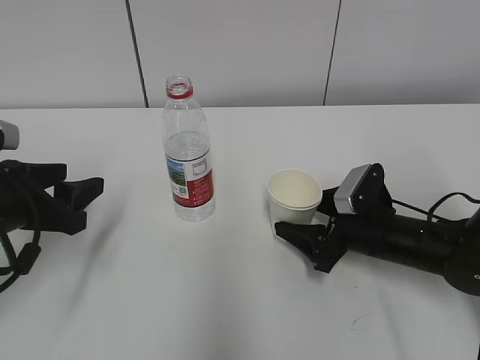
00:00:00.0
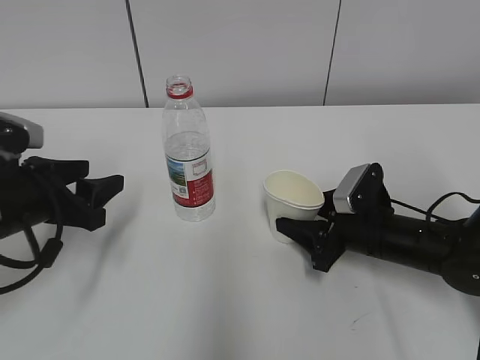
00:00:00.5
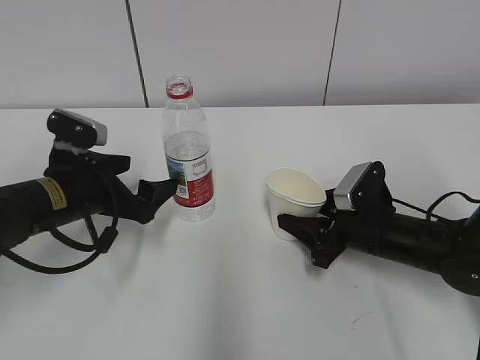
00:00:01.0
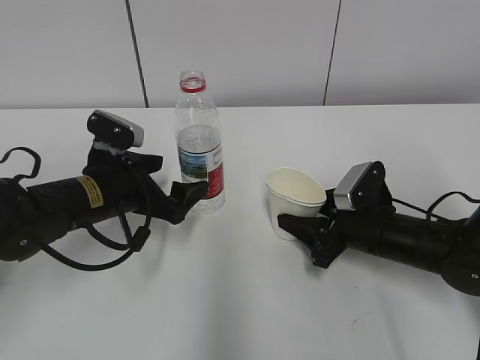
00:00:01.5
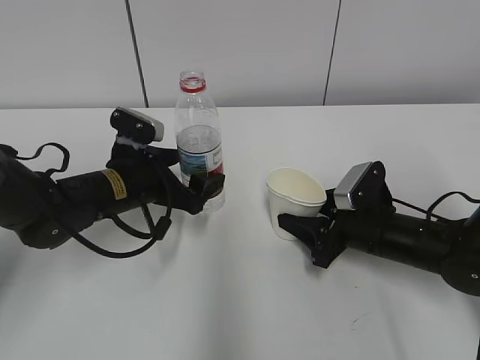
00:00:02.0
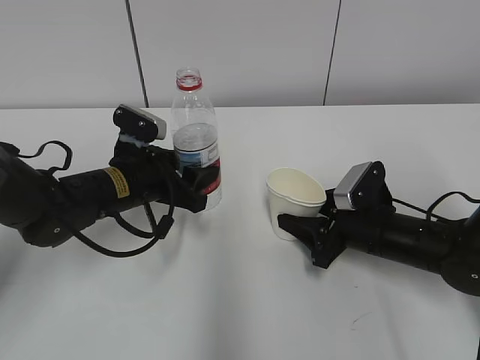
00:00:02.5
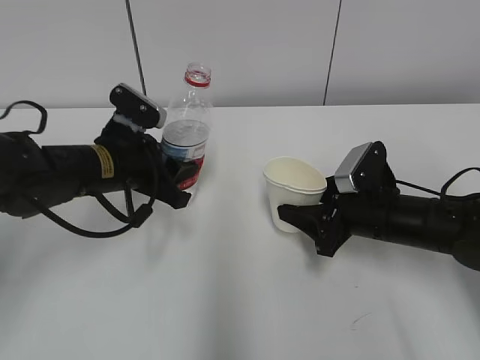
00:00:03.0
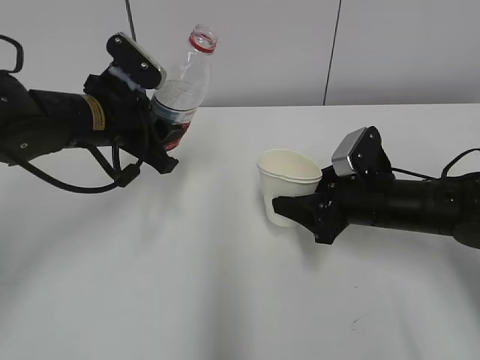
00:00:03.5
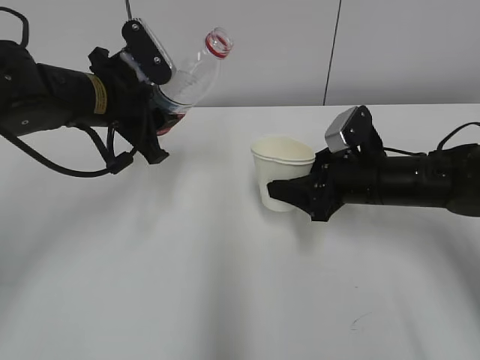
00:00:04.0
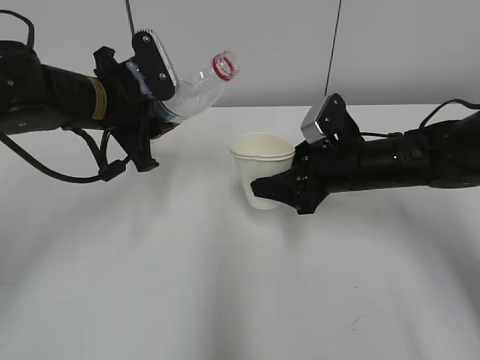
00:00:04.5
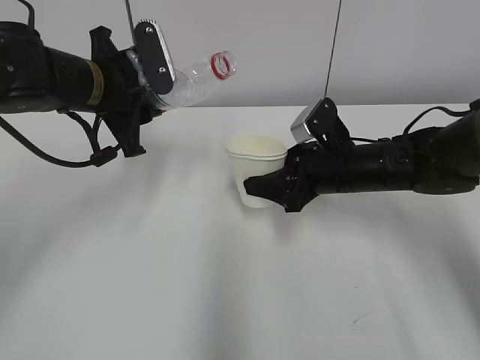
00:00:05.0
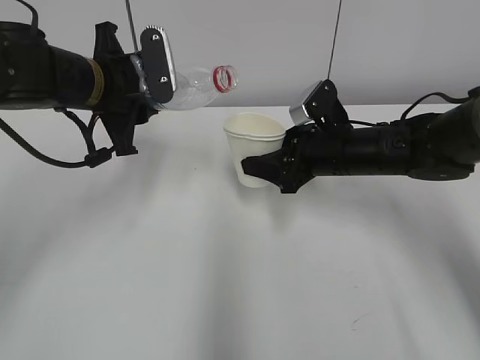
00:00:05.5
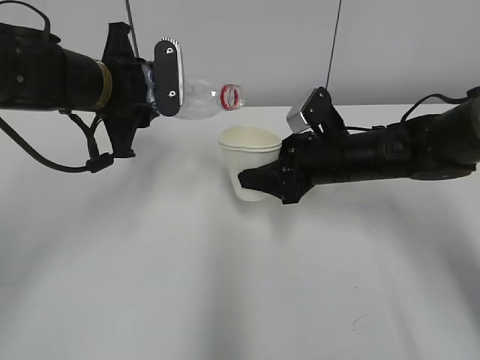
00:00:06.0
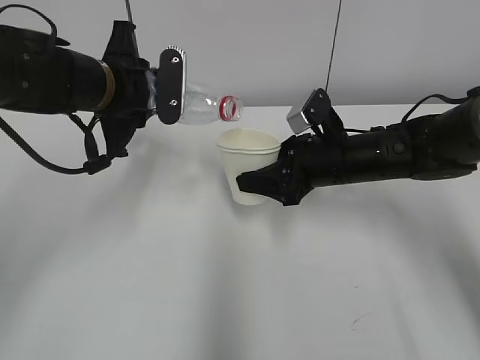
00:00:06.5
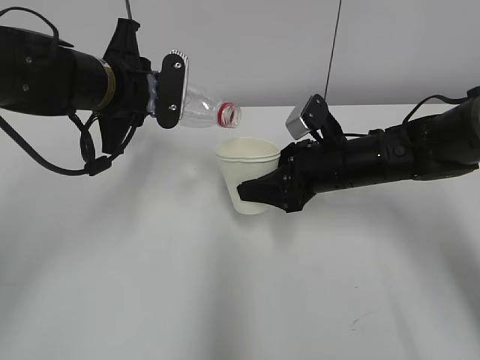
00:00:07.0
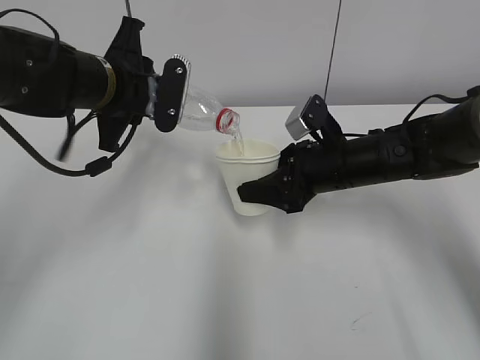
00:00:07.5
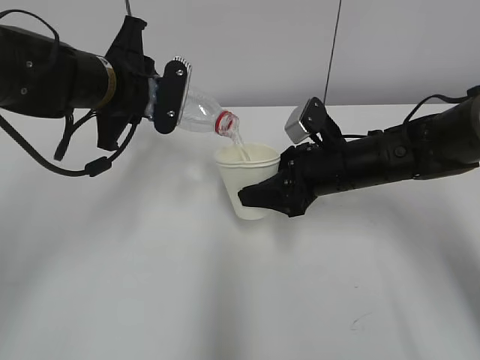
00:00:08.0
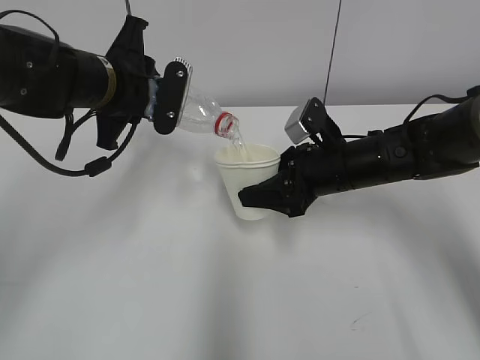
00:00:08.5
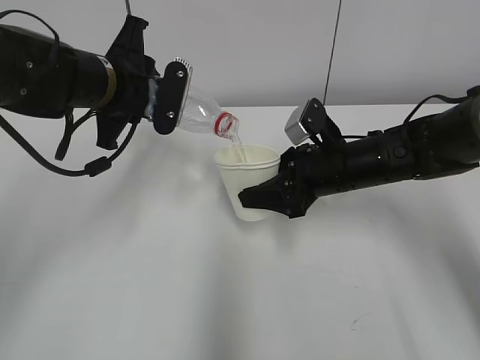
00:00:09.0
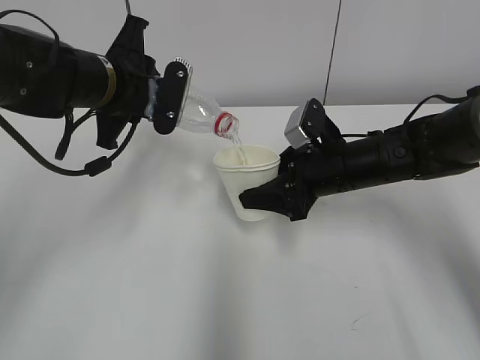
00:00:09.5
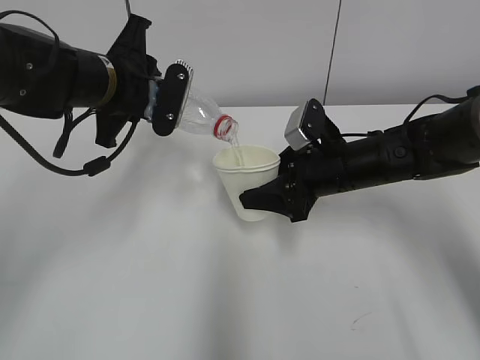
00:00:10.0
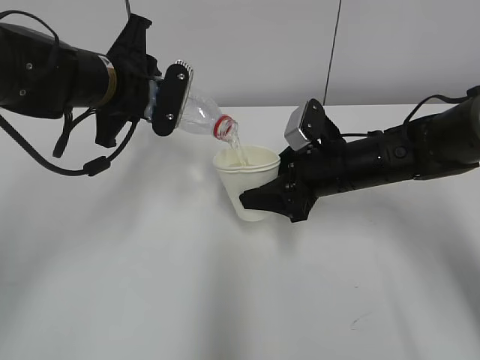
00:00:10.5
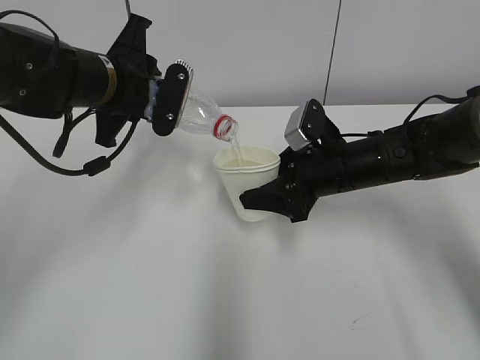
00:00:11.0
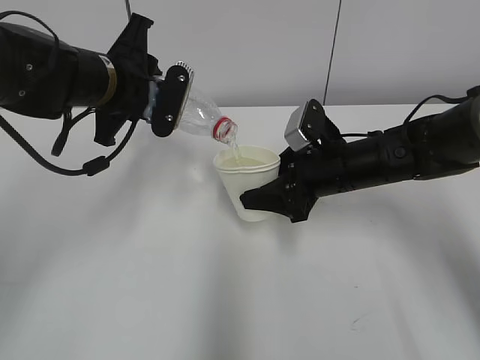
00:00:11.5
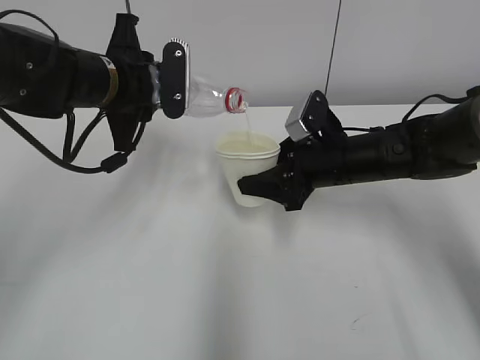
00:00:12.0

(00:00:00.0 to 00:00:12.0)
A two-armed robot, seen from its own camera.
Step, 00:00:00.5 - 00:00:04.0: Lift the paper cup with the right hand.
Step, 00:00:04.5 - 00:00:08.0: Fill water with the right hand.
Step, 00:00:04.5 - 00:00:08.0: Pour water with the left hand.
Step, 00:00:09.5 - 00:00:11.5: Place the paper cup with the right hand.
Step, 00:00:09.5 - 00:00:11.5: Place the water bottle with the left hand.
00:00:00.0 - 00:00:02.0: The left gripper moves to the right and forward, some 15 cm, and opens. Meanwhile the right gripper closes.
00:00:02.0 - 00:00:04.0: The left gripper is displaced upward by roughly 10 cm, and closes; the right gripper shifts about 5 cm upward.
00:00:06.0 - 00:00:08.0: The grippers make only small movements.
00:00:08.0 - 00:00:12.0: The grippers stay close to where they were, moving slightly.

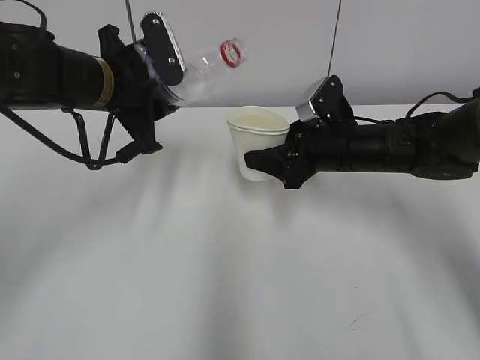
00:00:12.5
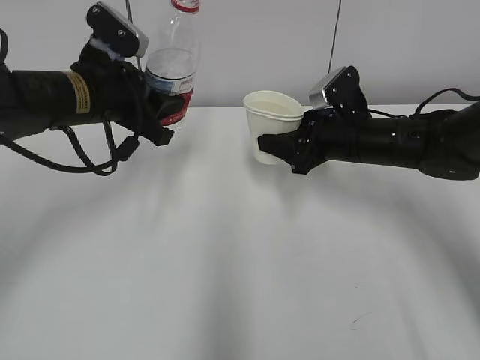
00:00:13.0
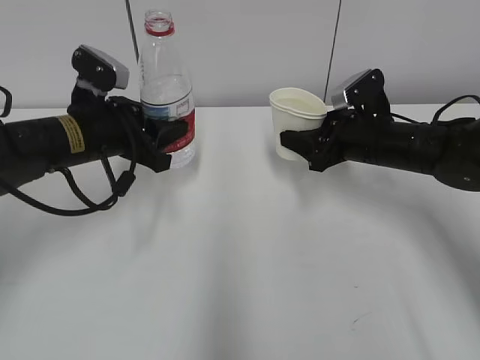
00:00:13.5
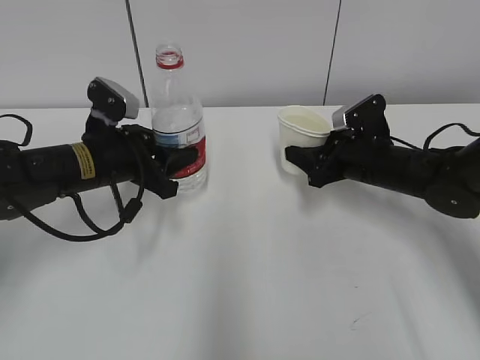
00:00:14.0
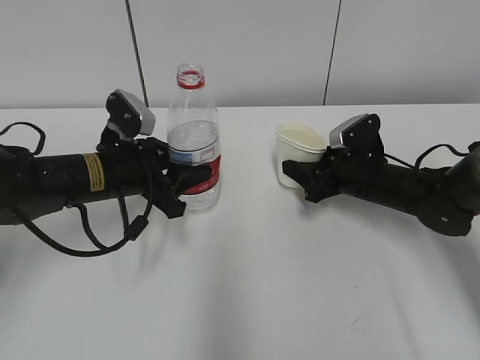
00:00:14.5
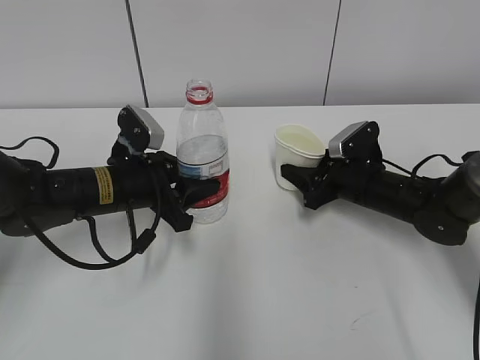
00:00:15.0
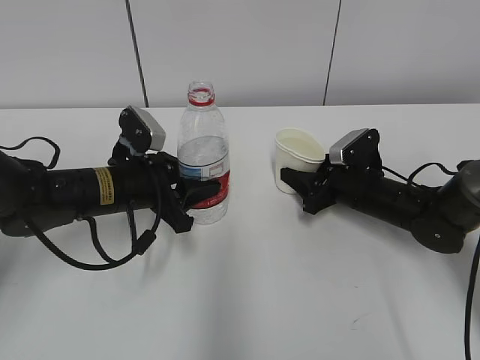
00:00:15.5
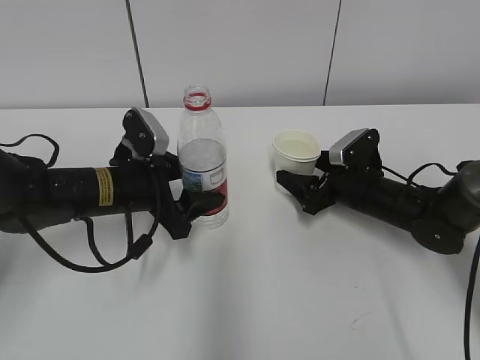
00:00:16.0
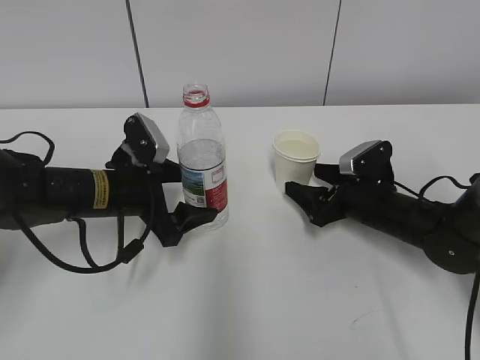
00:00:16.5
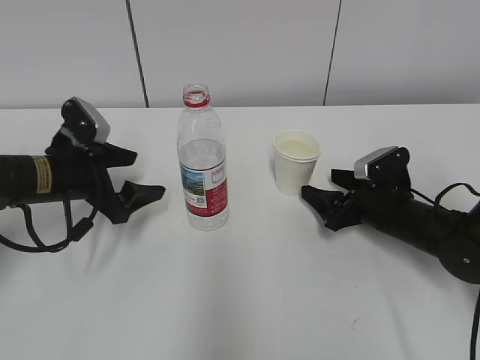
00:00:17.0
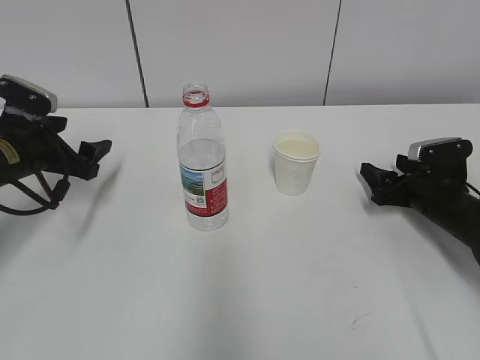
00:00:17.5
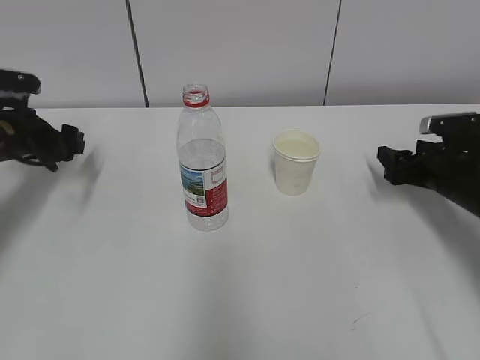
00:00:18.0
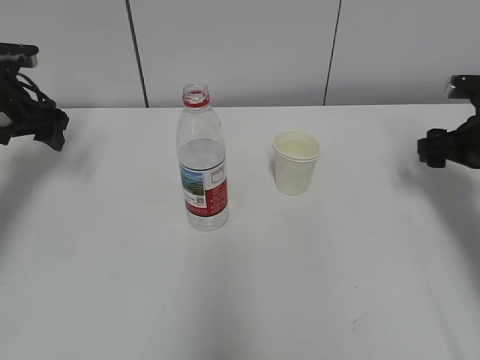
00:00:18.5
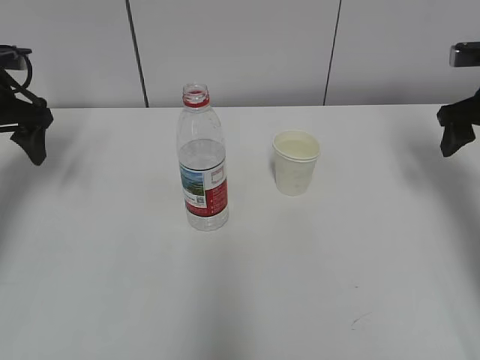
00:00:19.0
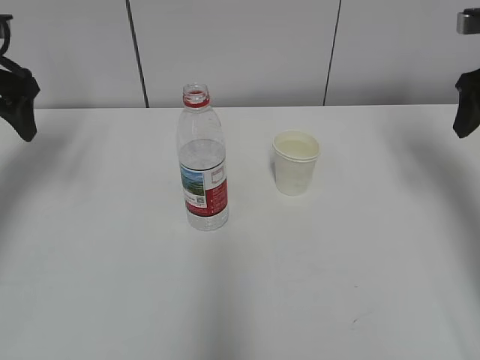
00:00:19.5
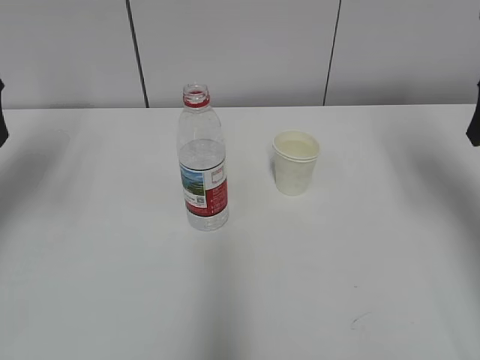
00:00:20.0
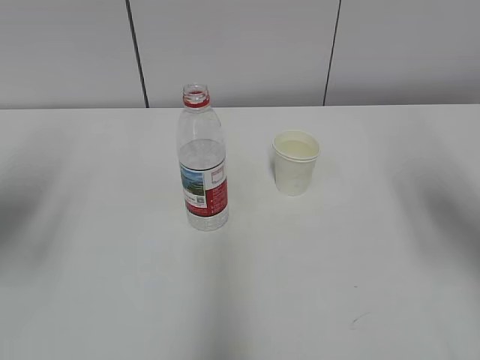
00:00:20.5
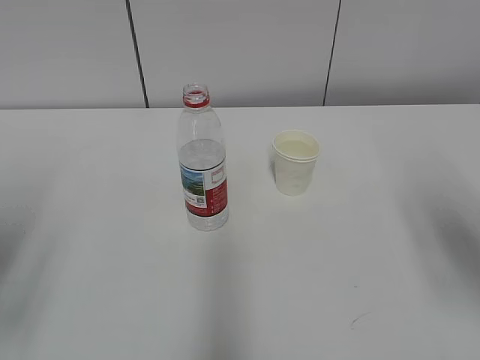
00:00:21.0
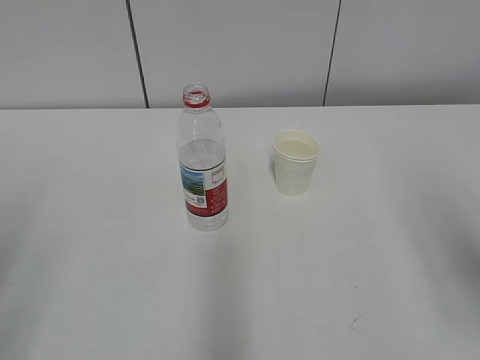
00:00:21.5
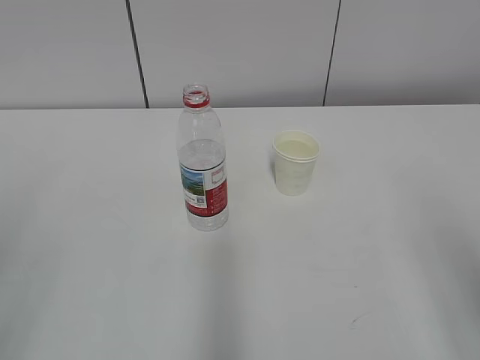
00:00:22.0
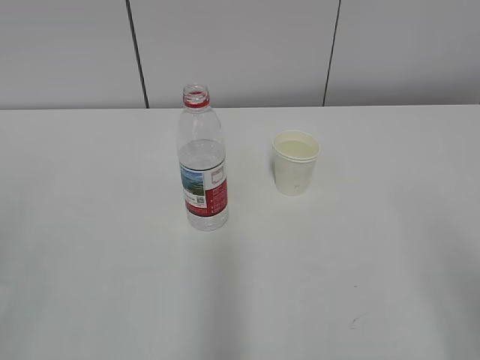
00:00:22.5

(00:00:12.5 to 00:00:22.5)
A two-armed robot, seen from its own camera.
00:00:12.5 - 00:00:14.5: The left gripper heads downward, covering some 10 cm, while the right gripper heads downward and to the right, covering some 10 cm.
00:00:14.5 - 00:00:16.5: The right gripper opens, while the left gripper opens up.
00:00:16.5 - 00:00:18.5: The left gripper shifts approximately 20 cm to the left, forward and upward, while the right gripper goes some 15 cm to the right and upward.
00:00:18.5 - 00:00:20.5: The right gripper heads upward and backward, covering approximately 20 cm, while the left gripper is displaced backward and upward by approximately 20 cm.
00:00:20.5 - 00:00:22.5: Both grippers travel together backward, some 20 cm.

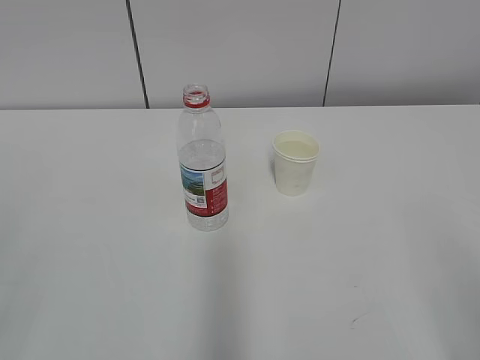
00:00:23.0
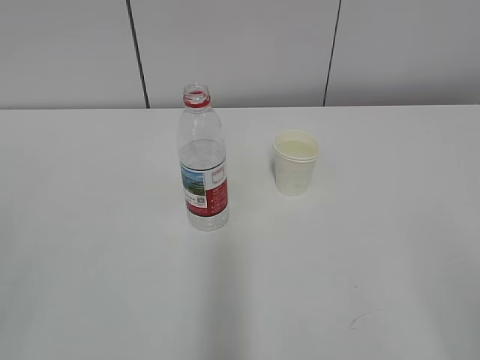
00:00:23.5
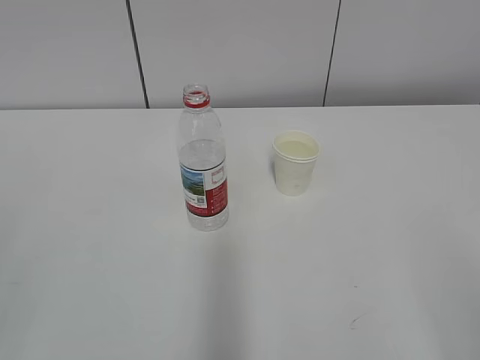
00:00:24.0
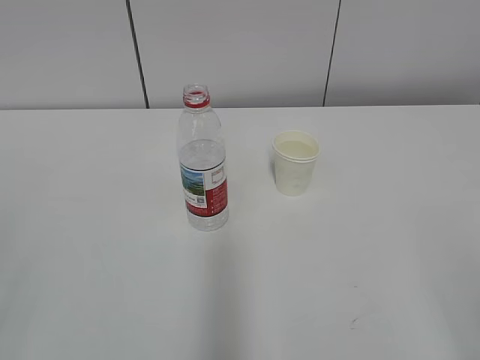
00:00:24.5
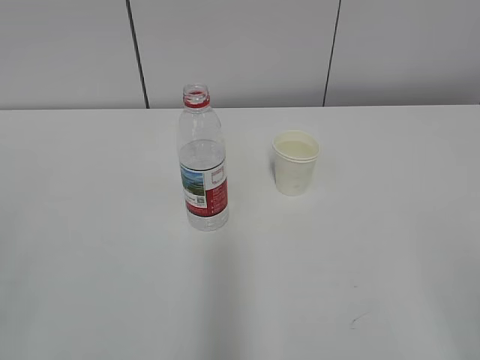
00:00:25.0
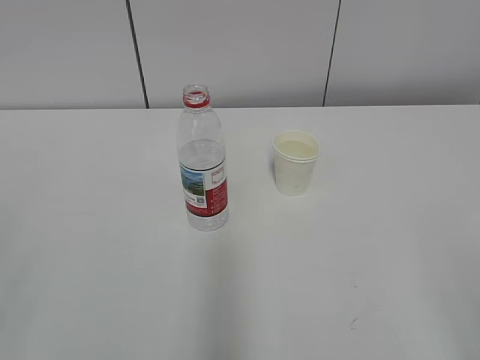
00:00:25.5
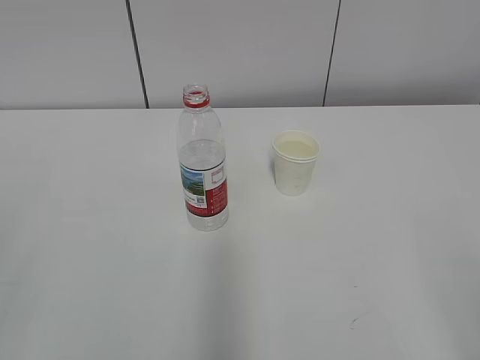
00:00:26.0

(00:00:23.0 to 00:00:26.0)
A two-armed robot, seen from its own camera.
00:00:24.5 - 00:00:26.0: Neither gripper changes place.
